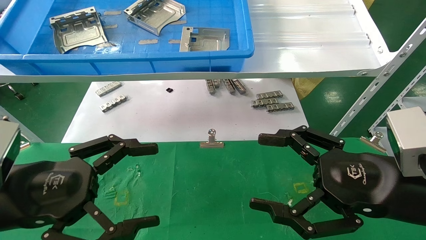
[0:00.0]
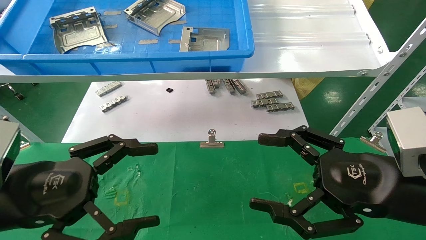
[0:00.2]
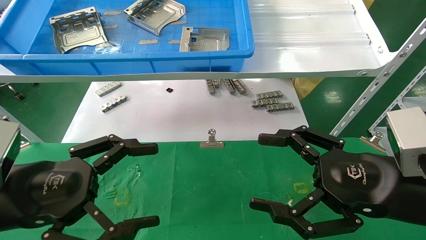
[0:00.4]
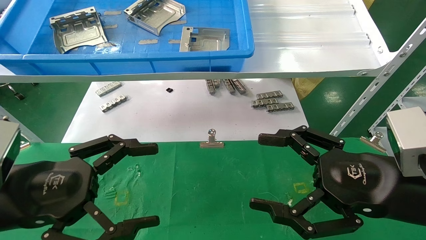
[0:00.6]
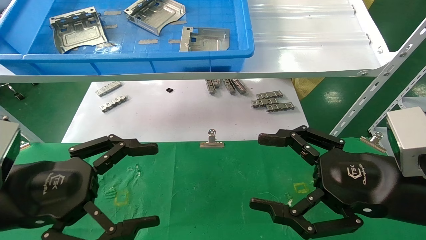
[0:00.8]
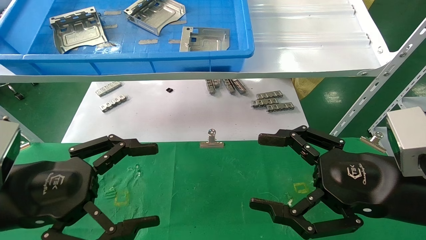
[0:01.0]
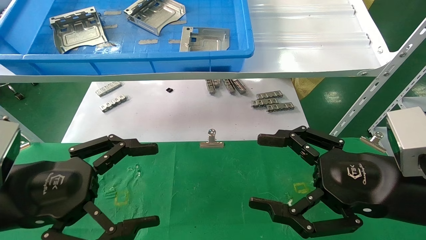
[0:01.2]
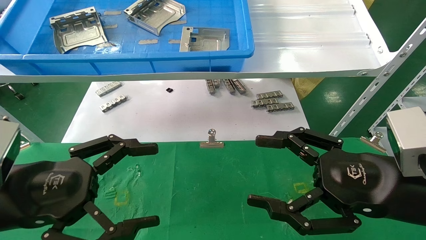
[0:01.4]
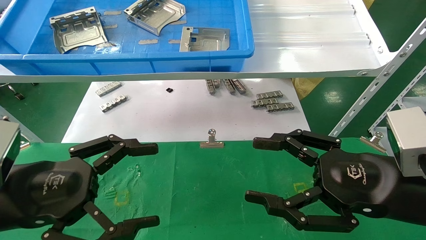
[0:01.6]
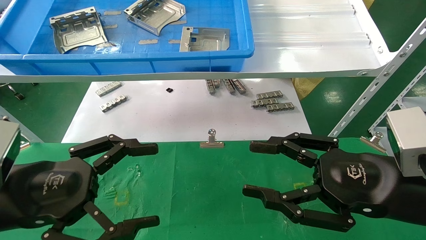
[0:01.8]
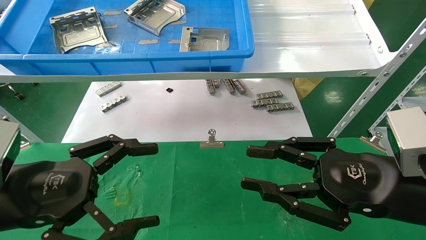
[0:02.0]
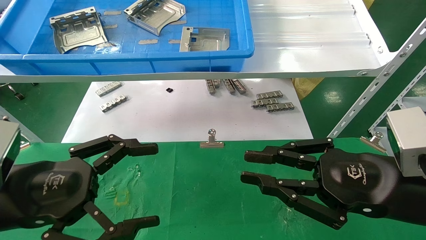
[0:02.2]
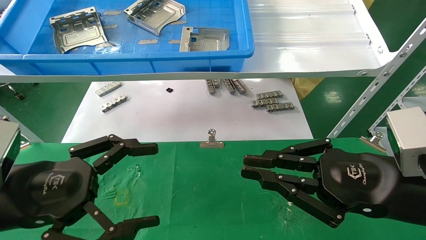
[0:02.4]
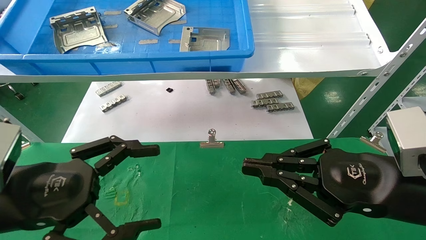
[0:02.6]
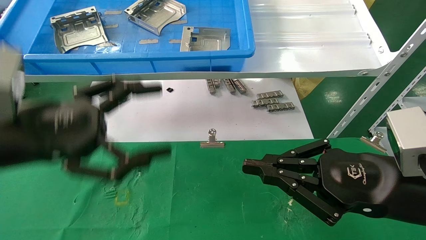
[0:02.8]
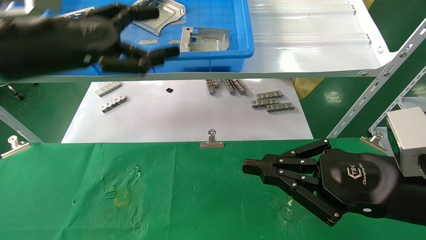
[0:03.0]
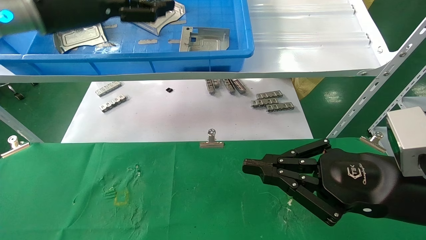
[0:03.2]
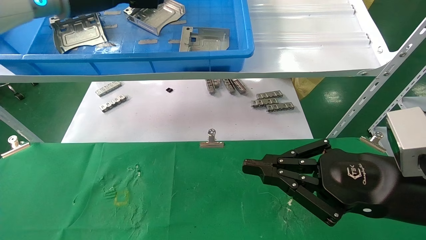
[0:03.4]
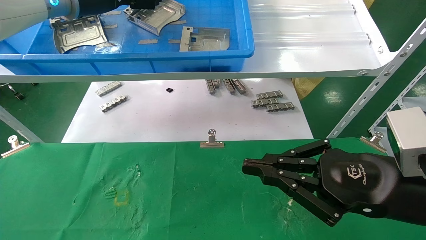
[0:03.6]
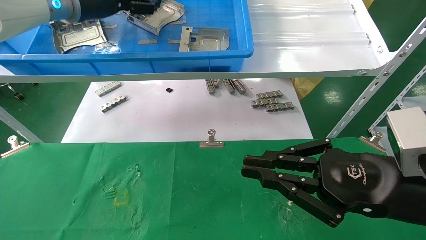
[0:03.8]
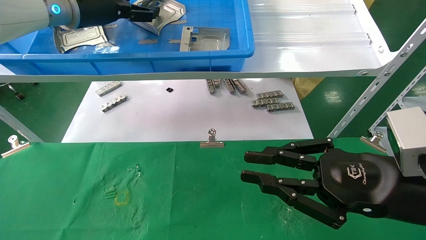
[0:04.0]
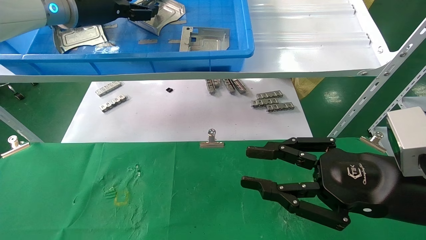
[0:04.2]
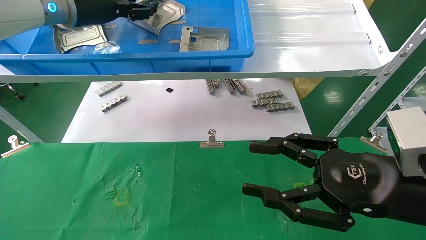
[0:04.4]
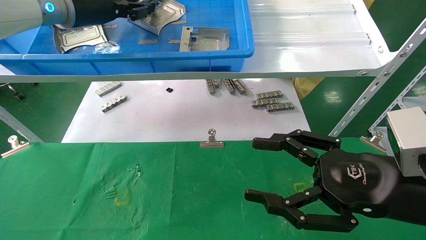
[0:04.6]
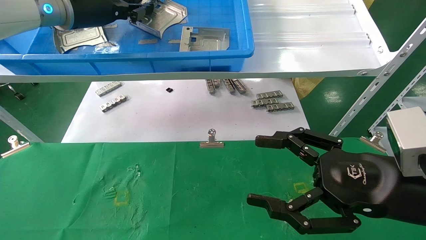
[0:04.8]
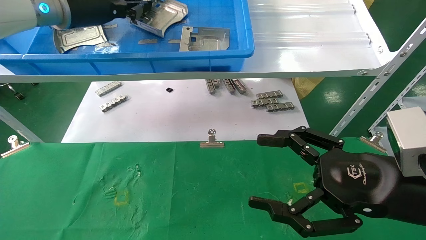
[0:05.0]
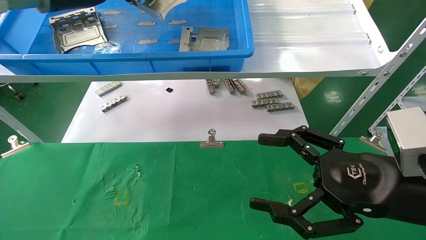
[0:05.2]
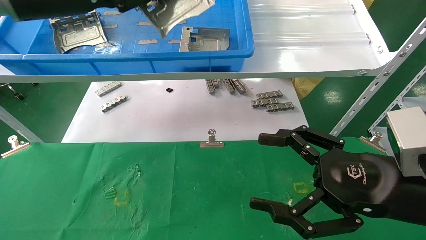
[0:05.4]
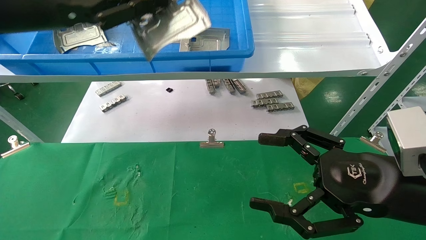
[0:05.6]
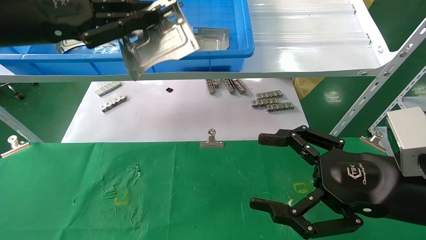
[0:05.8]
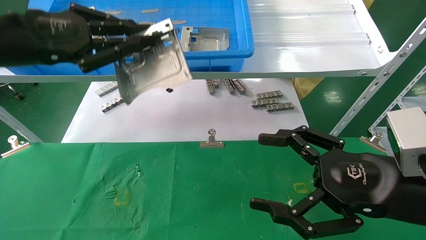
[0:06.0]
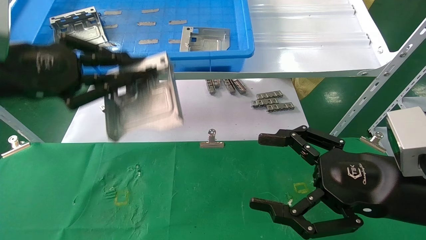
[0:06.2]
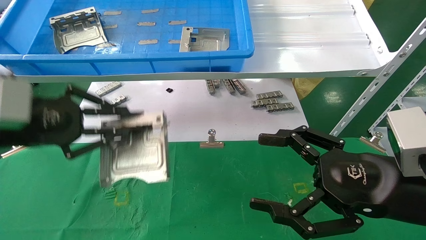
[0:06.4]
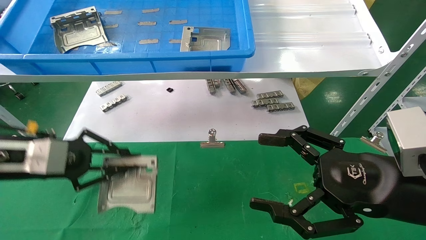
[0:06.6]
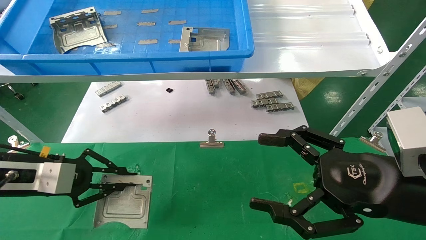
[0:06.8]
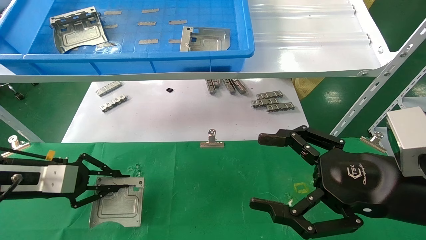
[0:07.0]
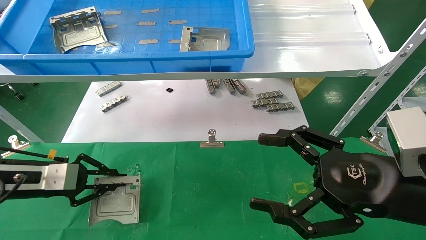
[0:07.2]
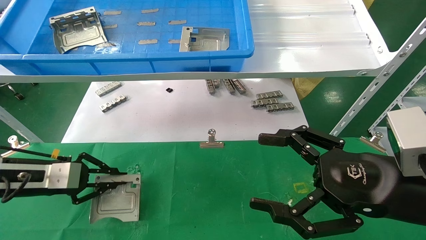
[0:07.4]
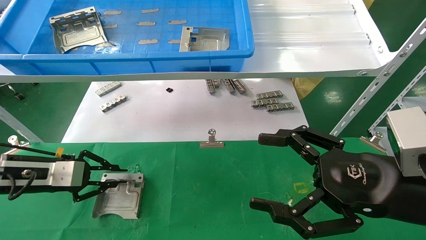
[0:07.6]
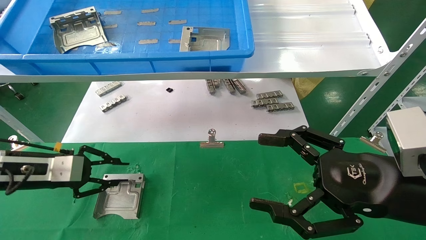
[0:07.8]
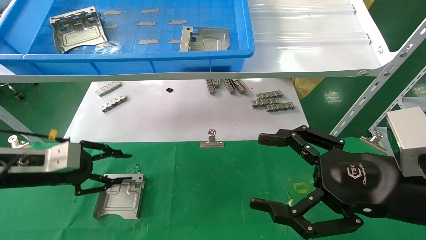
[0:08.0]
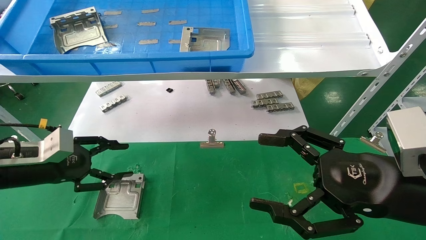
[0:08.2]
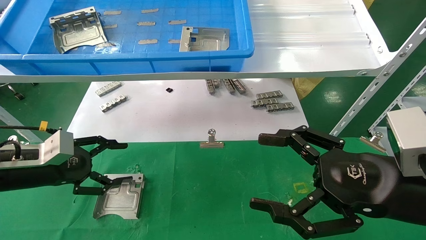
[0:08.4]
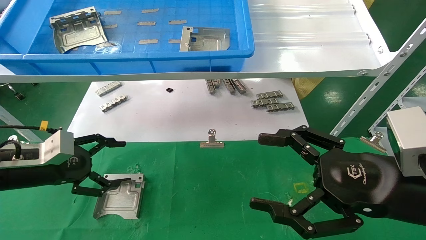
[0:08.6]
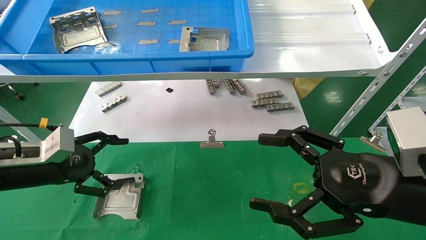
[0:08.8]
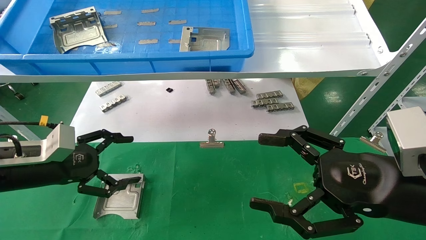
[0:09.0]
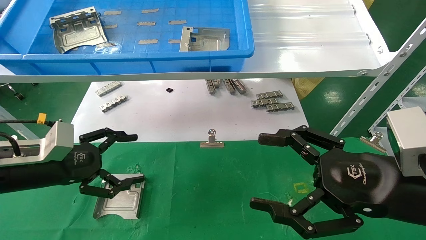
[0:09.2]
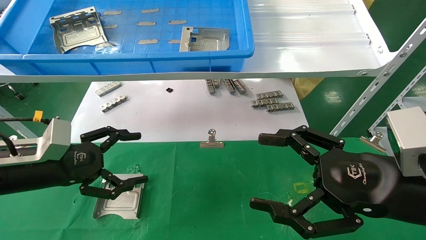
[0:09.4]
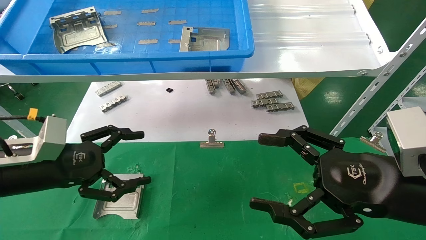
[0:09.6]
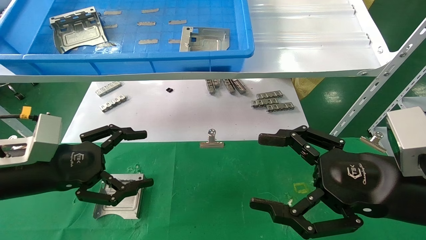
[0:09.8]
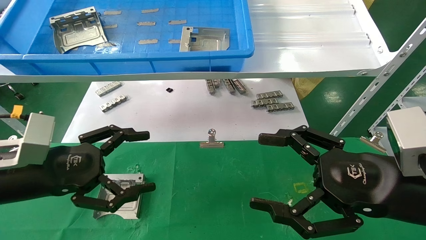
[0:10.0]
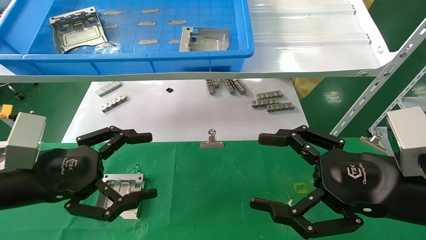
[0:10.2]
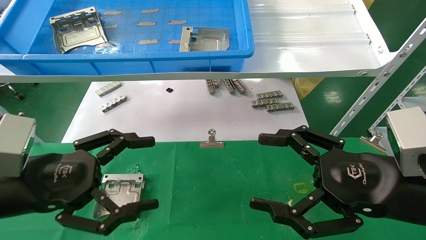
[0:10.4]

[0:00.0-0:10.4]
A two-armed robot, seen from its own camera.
Task of the whole recording: use the mechanical arm to pick up the parts and place them on the table.
Step, 0:02.8 to 0:04.8: Pick up the hard drive bracket from the feeding area.
Step, 0:05.0 to 0:08.0: Place the hard drive bracket into the box.
0:00.0 to 0:01.4: Both grippers stay put.
0:01.4 to 0:03.0: The right gripper closes its fingers; the left gripper is displaced upward and forward by some 20 cm.
0:03.0 to 0:04.4: The right gripper opens, while the left gripper travels forward and upward by some 15 cm, and closes its fingers.
0:04.4 to 0:06.0: The right gripper opens its fingers. Meanwhile the left gripper is displaced backward and downward by approximately 15 cm, and closes up.
0:06.0 to 0:07.4: The left gripper goes roughly 25 cm downward.
0:07.4 to 0:09.0: The left gripper opens up.
0:09.0 to 0:10.4: The left gripper travels backward and to the right by approximately 10 cm.

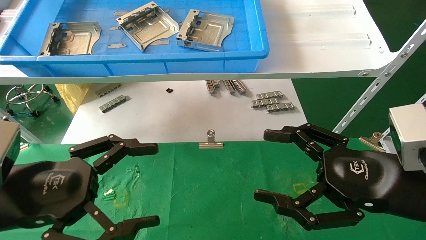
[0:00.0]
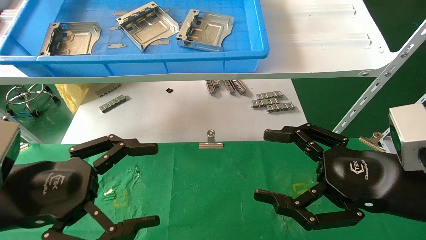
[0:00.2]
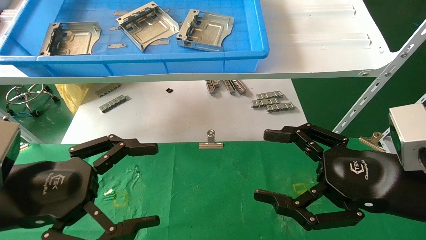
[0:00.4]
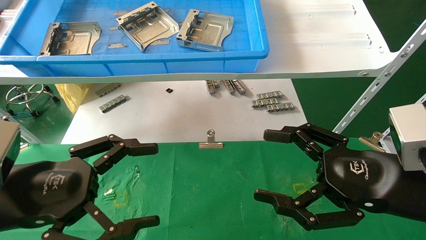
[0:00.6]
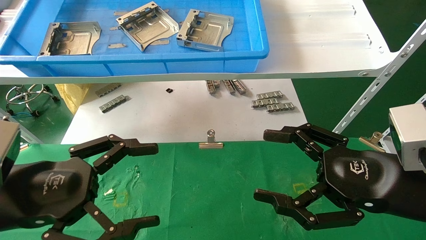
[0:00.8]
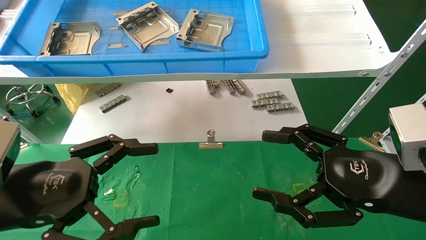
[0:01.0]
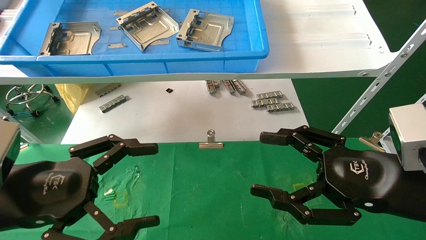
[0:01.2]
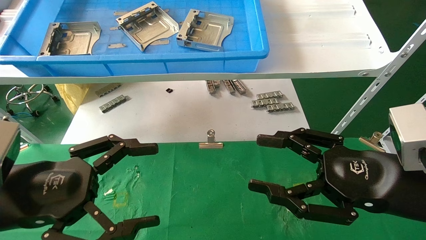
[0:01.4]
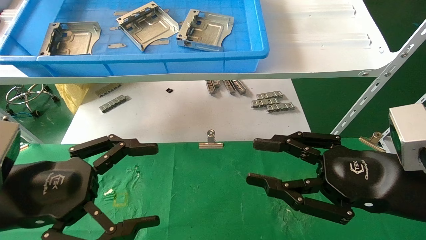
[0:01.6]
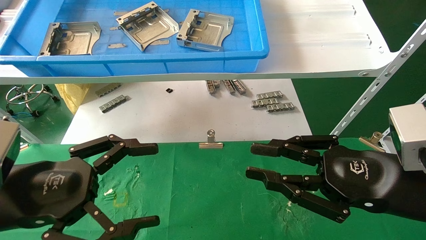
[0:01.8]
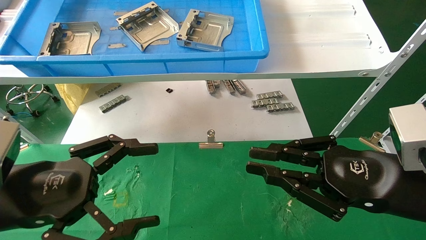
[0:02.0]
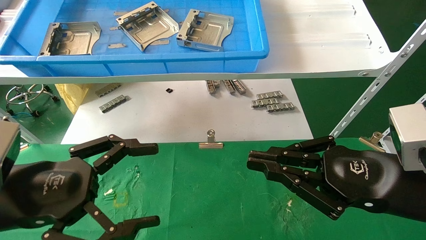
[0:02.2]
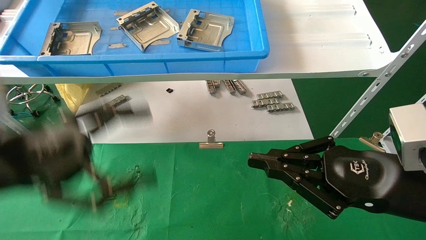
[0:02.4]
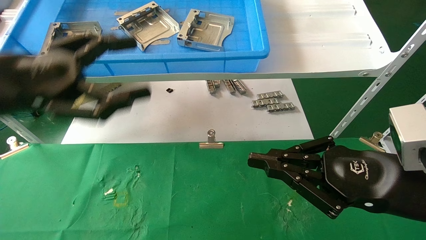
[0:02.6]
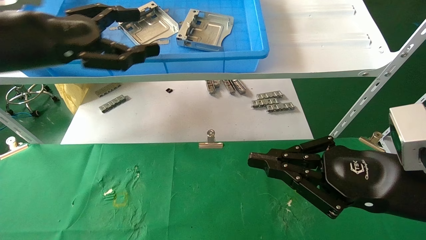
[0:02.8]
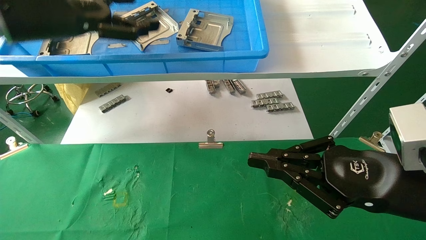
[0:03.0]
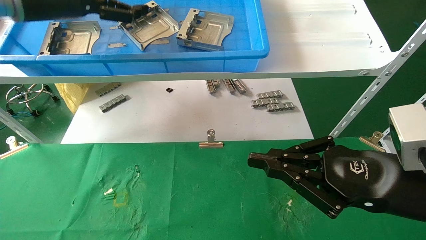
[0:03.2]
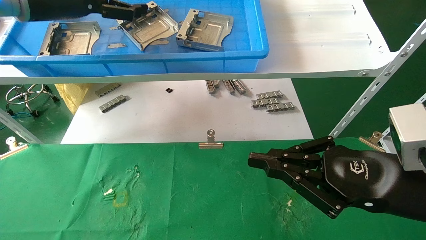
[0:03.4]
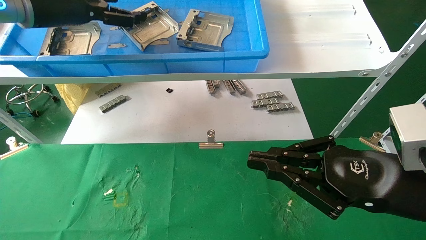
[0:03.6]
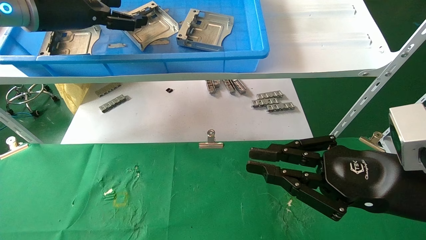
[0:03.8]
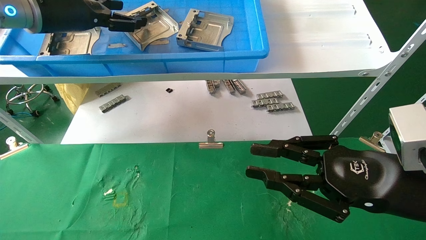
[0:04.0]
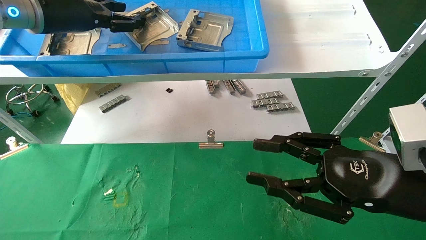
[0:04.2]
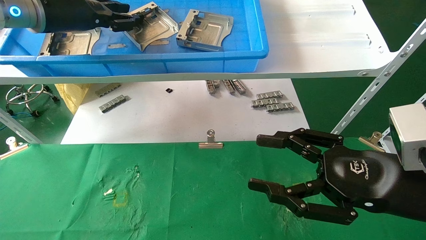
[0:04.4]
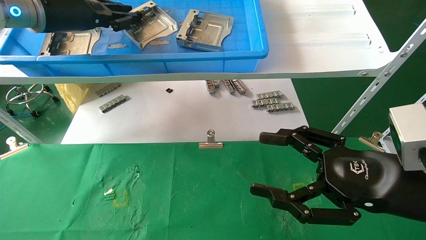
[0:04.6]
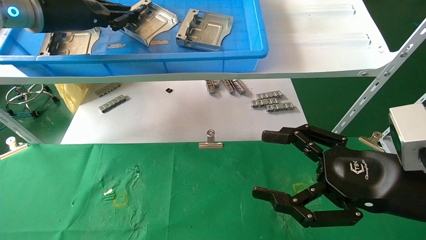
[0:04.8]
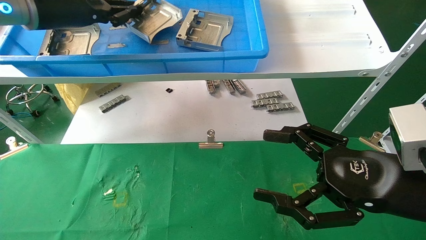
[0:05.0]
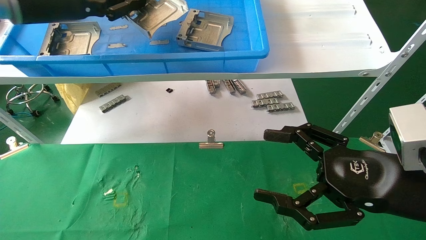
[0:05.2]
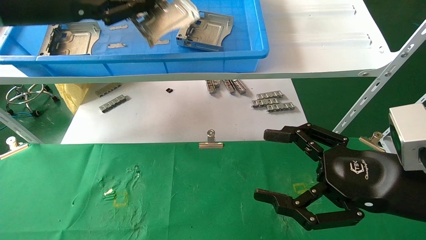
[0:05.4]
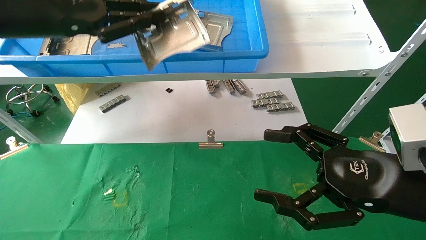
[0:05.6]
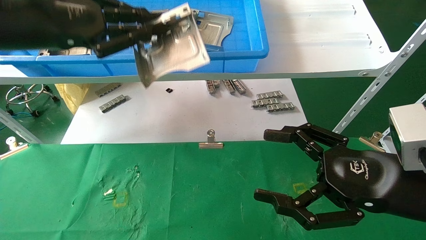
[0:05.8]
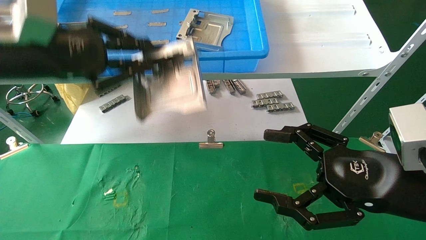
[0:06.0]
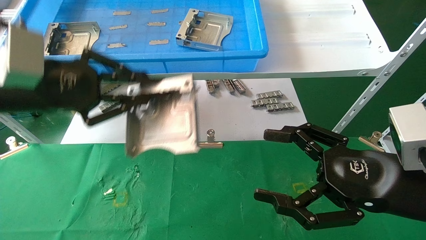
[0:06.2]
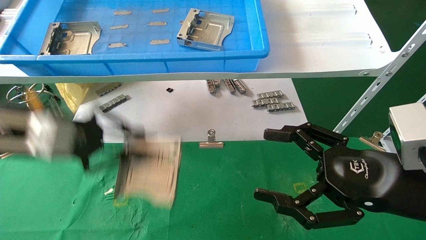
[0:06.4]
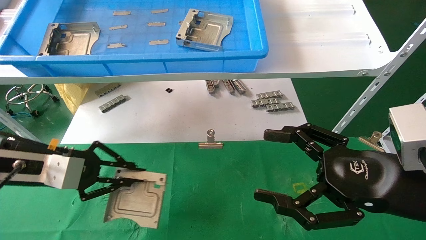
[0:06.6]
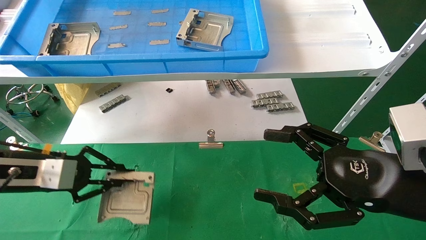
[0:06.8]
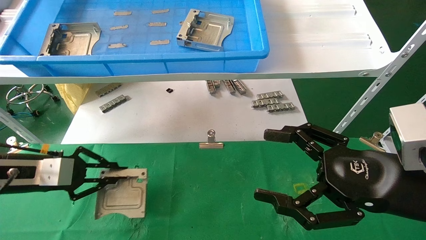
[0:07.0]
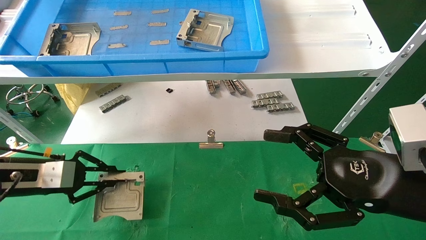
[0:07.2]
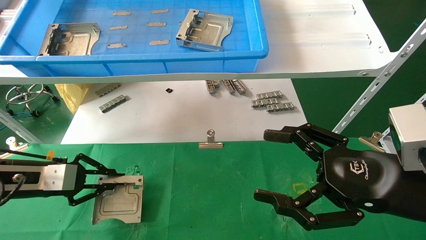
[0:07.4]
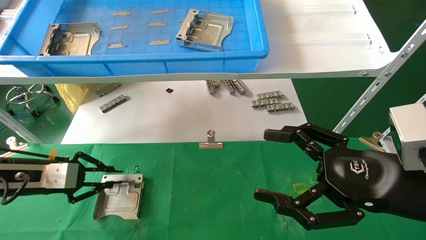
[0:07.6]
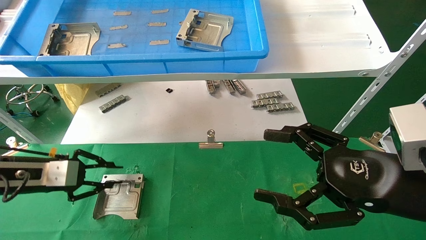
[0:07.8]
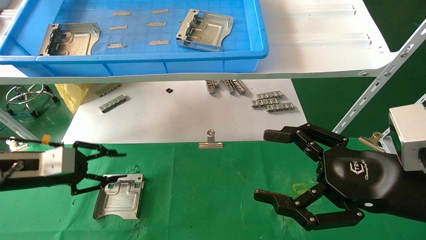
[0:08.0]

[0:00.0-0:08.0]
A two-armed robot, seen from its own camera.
Task of the whole recording: use the mechanical arm to pick up the parts and place them on the table.
Step, 0:02.6 to 0:04.8: Pick up the hard drive bracket from the feeding area.
Step, 0:05.0 to 0:07.8: Place the hard drive bracket into the box.
0:00.0 to 0:01.6: The right gripper closes up.
0:01.6 to 0:03.2: The right gripper closes; the left gripper goes approximately 30 cm upward and forward.
0:03.2 to 0:04.8: The right gripper opens its fingers, while the left gripper closes up.
0:04.8 to 0:06.4: The left gripper shifts about 20 cm downward and backward.
0:06.4 to 0:08.0: The left gripper goes about 15 cm downward and to the left.
